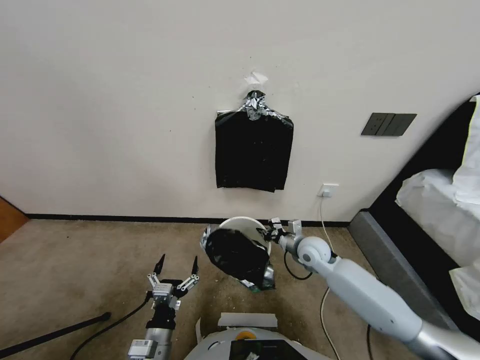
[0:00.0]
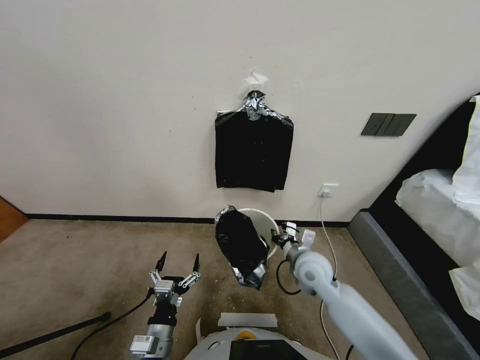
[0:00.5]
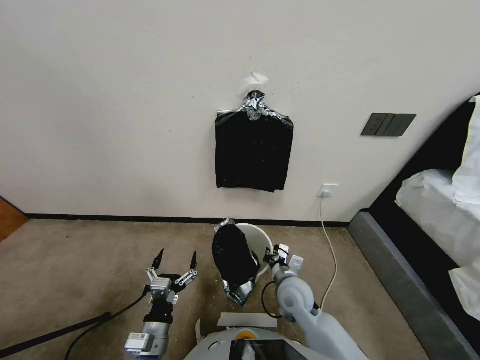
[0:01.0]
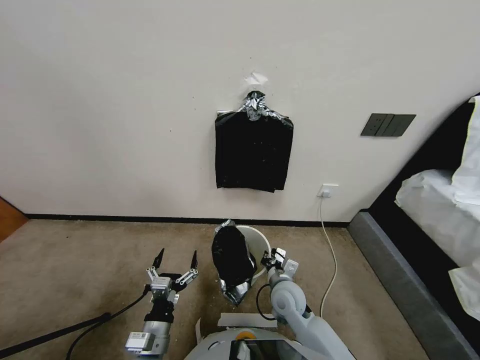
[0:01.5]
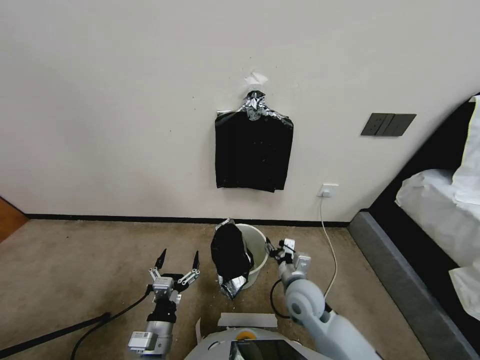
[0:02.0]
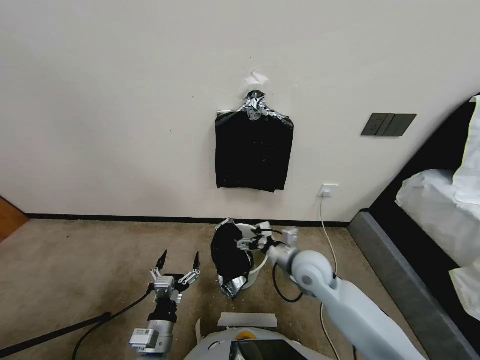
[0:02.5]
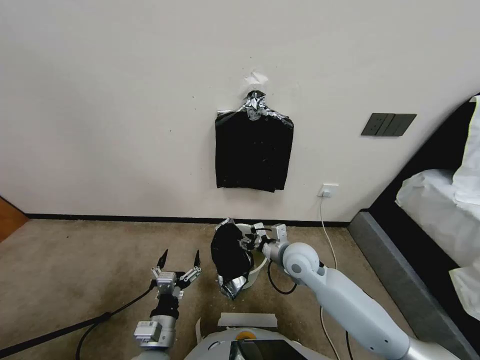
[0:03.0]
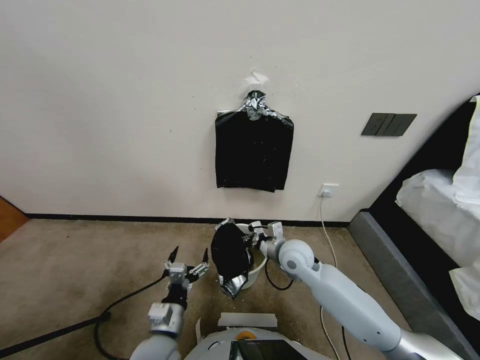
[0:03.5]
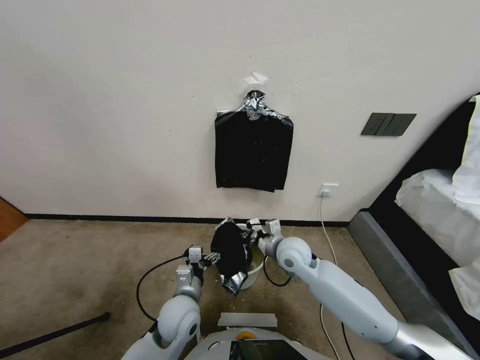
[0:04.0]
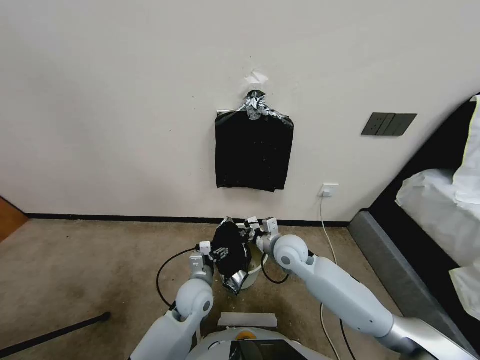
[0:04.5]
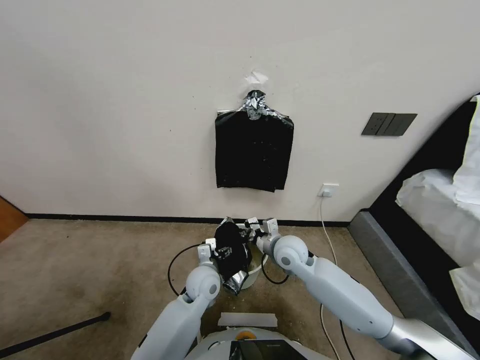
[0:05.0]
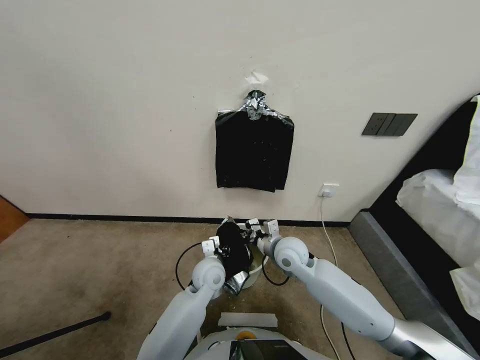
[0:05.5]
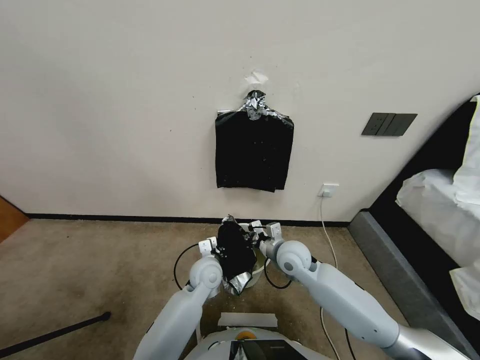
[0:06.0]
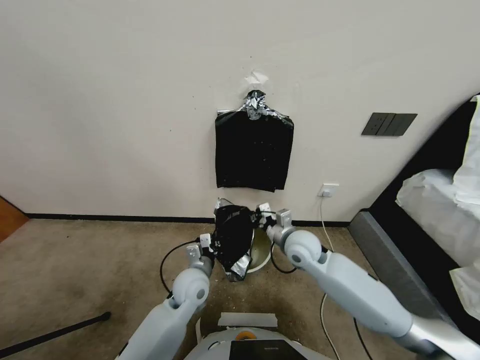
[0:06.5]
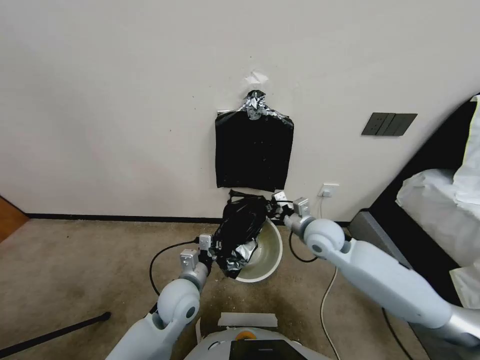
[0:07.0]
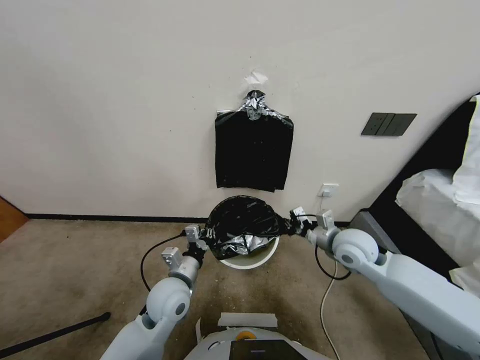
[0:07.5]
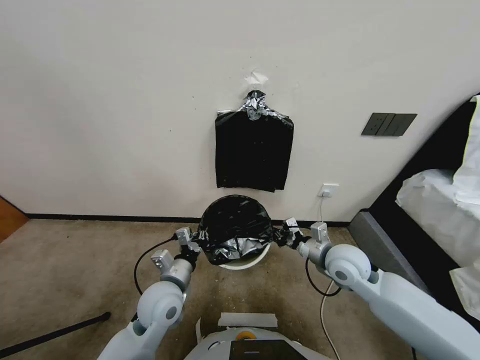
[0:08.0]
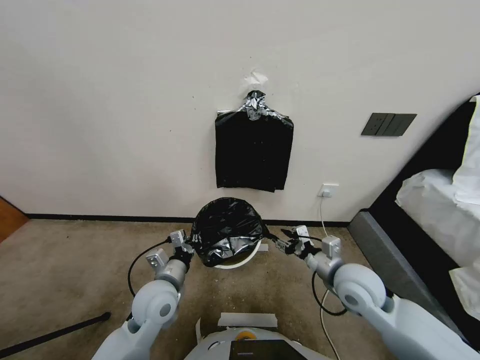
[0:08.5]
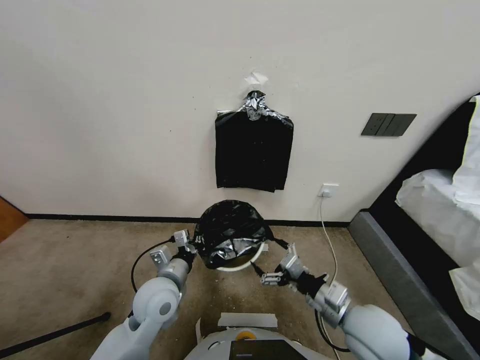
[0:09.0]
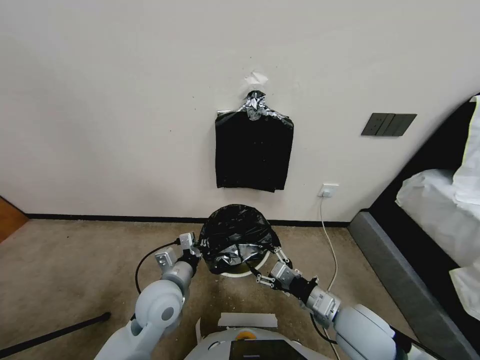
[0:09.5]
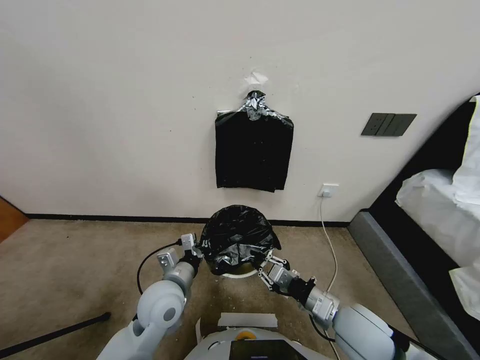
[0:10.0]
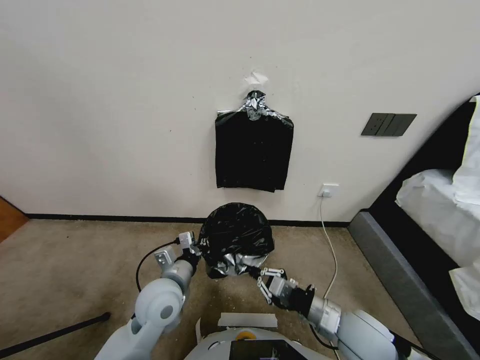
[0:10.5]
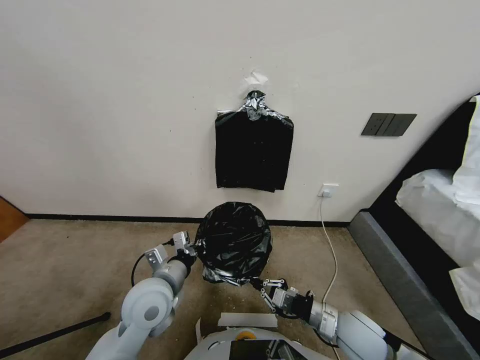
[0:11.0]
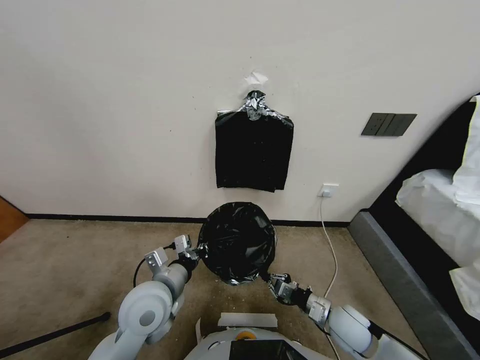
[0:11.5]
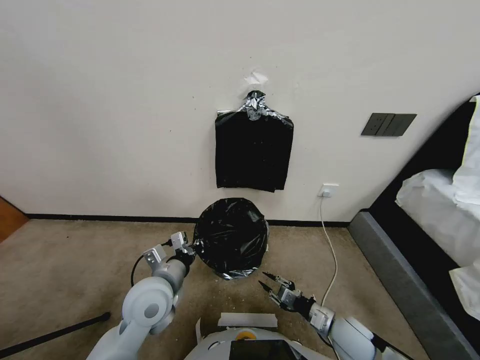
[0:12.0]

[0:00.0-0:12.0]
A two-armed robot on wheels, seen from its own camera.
Task of the whole recording: Place a trash bag onto the trash bin.
0:00.0 to 0:02.0: The right gripper travels backward by approximately 10 cm, and opens its fingers.
0:02.0 to 0:04.0: The right gripper heads forward, covering about 10 cm, and closes up. The left gripper shifts some 15 cm forward and to the right.
0:04.0 to 0:06.0: The left gripper is displaced forward by some 10 cm, and closes.
0:06.0 to 0:08.0: The left gripper goes approximately 15 cm backward, to the left and upward. Meanwhile the right gripper heads to the right, covering approximately 10 cm.
0:08.0 to 0:10.0: The right gripper moves backward, approximately 10 cm, and opens and closes again.
0:10.0 to 0:12.0: The right gripper heads downward, covering some 10 cm, and opens its fingers.

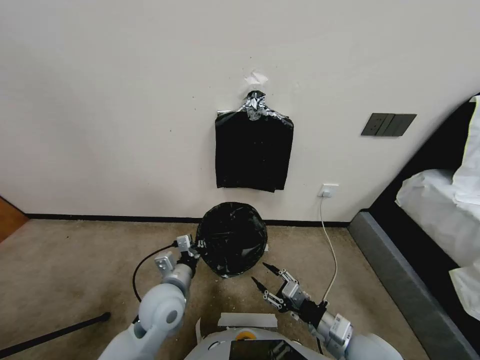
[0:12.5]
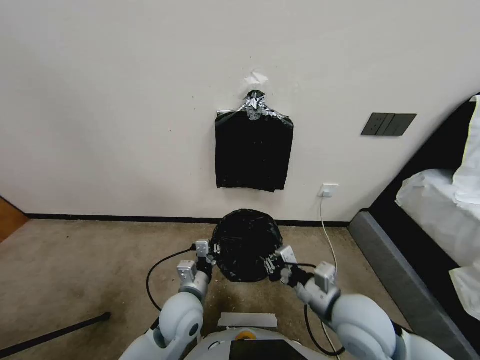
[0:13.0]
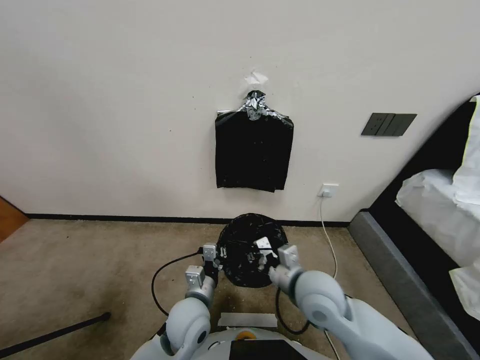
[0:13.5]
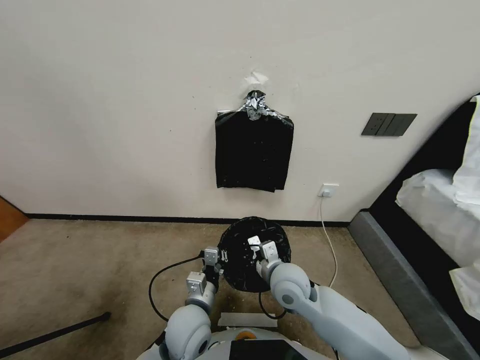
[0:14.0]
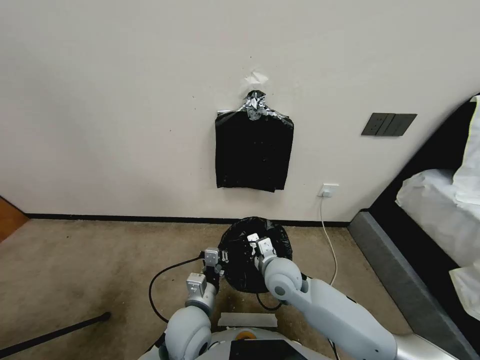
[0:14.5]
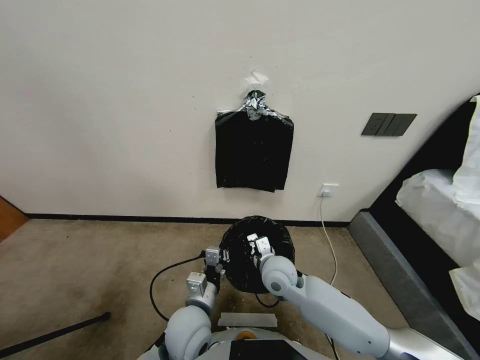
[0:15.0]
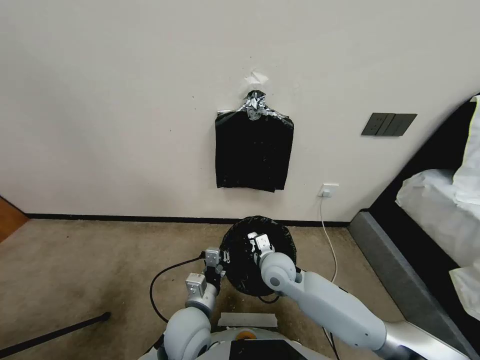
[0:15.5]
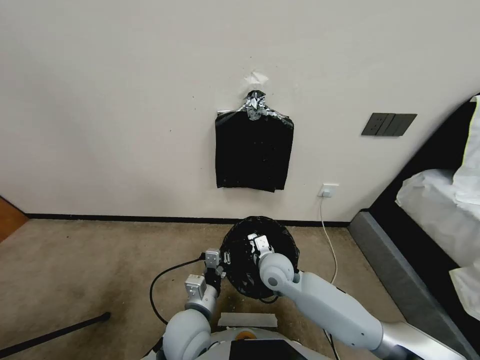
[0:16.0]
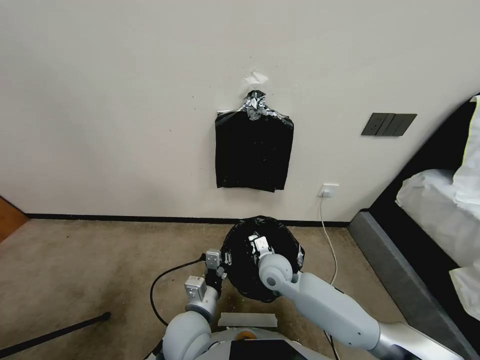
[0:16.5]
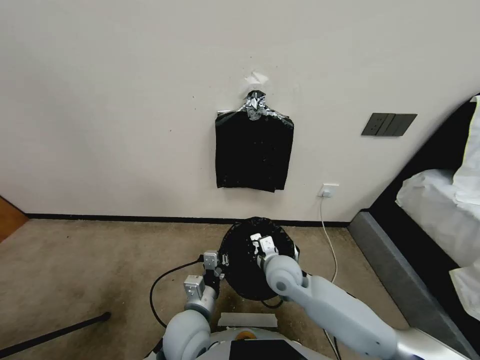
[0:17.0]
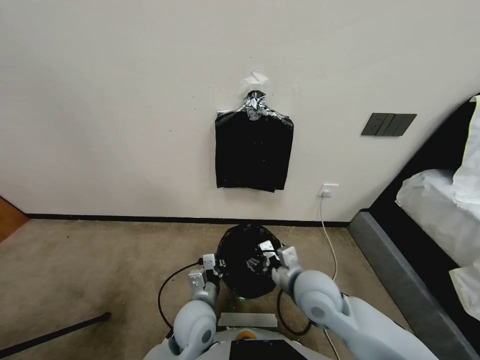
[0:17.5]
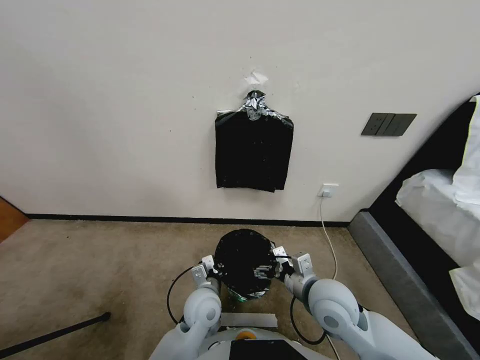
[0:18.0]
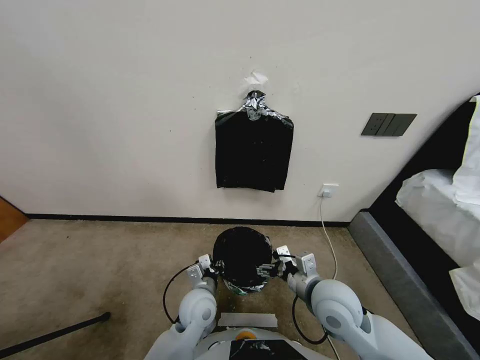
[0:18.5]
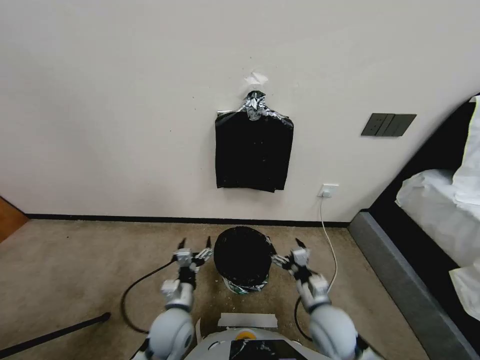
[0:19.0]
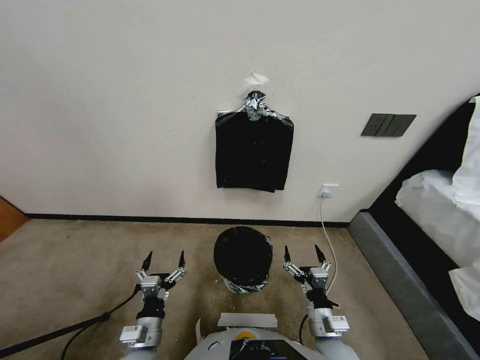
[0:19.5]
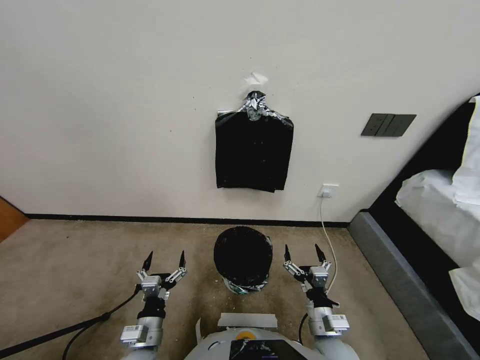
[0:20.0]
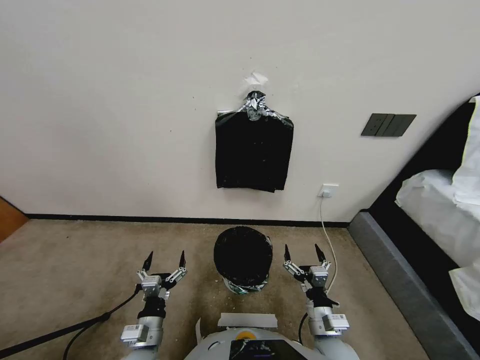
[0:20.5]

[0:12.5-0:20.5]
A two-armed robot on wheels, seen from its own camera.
Task of the whole recording: Place a trash bag onto the trash bin.
0:12.5 to 0:14.5: The left gripper shifts about 5 cm to the right; the right gripper moves forward and to the left, about 20 cm, and closes its fingers.
0:14.5 to 0:16.5: There are only small adjustments of the grippers.
0:16.5 to 0:18.5: The right gripper travels backward, to the right and upward by roughly 15 cm, and opens its fingers, while the left gripper goes approximately 5 cm forward and downward, and opens up.
0:18.5 to 0:20.5: The left gripper is displaced to the left and backward by roughly 15 cm, and opens its fingers, while the right gripper heads downward and backward, covering some 15 cm.

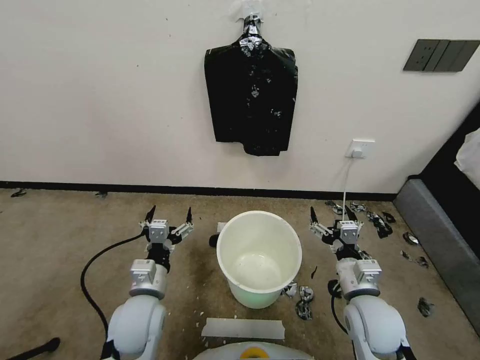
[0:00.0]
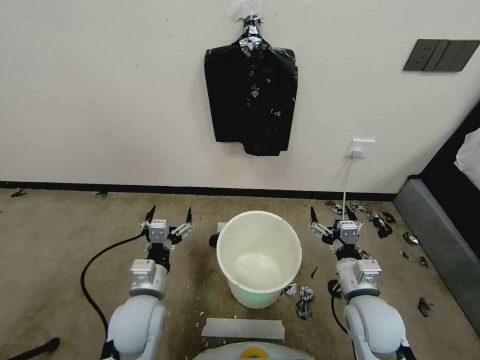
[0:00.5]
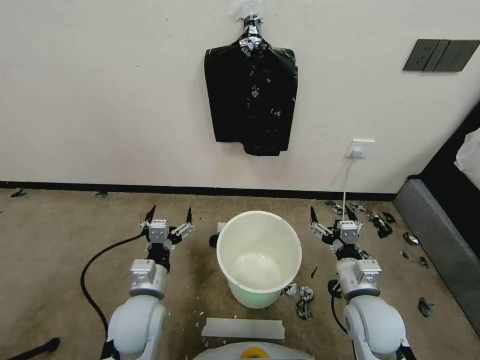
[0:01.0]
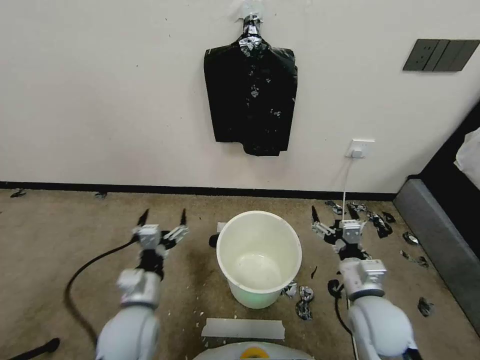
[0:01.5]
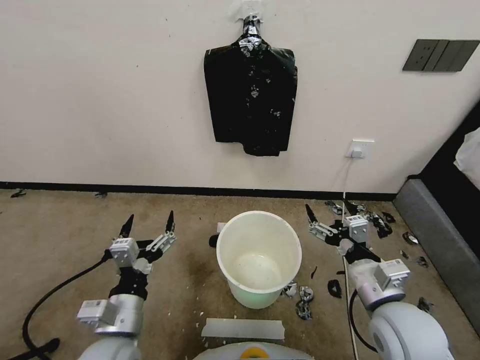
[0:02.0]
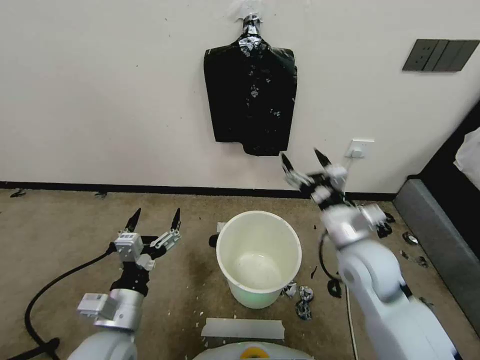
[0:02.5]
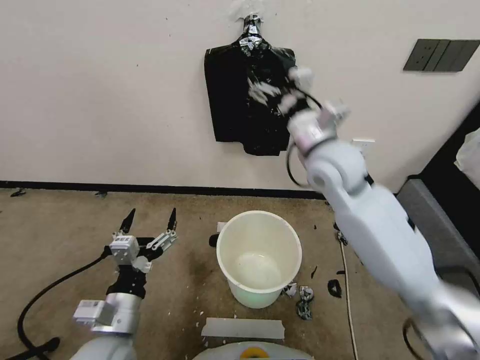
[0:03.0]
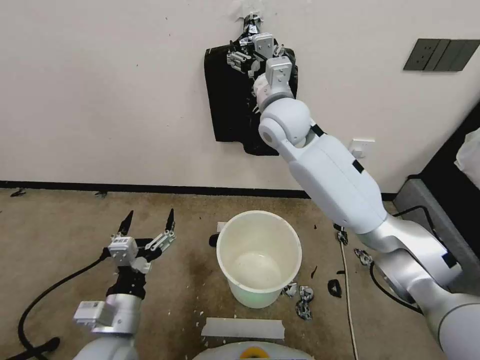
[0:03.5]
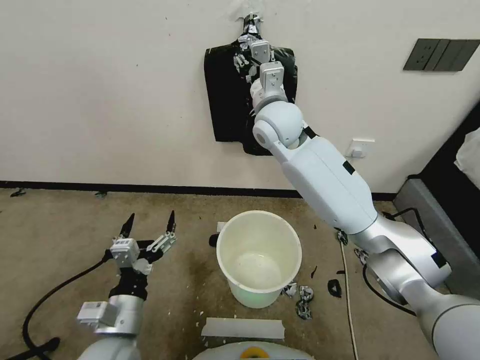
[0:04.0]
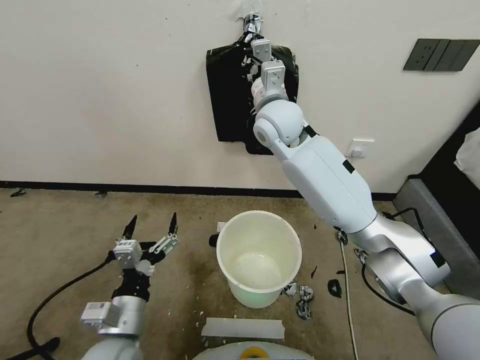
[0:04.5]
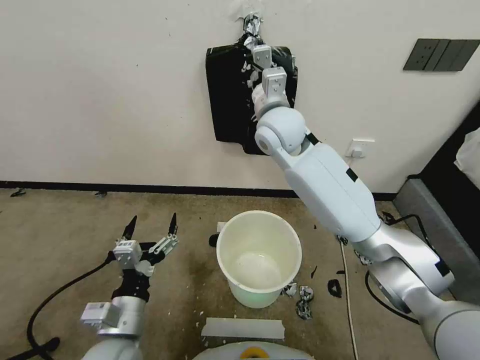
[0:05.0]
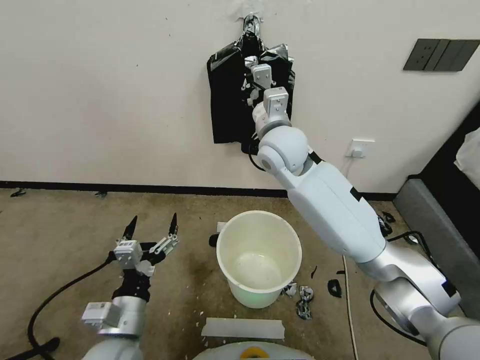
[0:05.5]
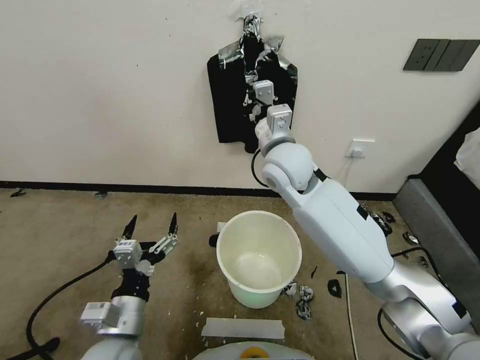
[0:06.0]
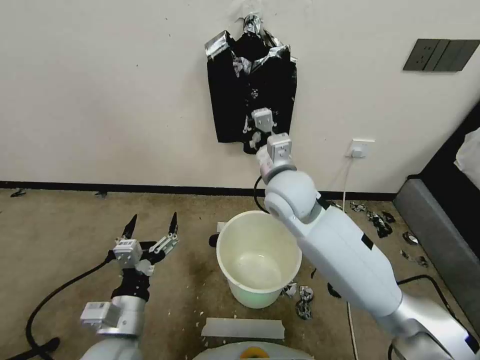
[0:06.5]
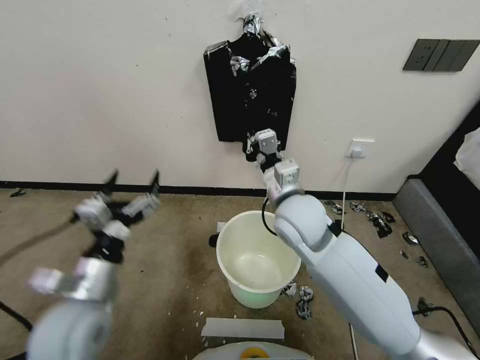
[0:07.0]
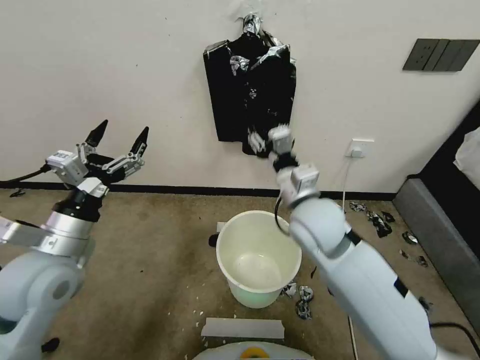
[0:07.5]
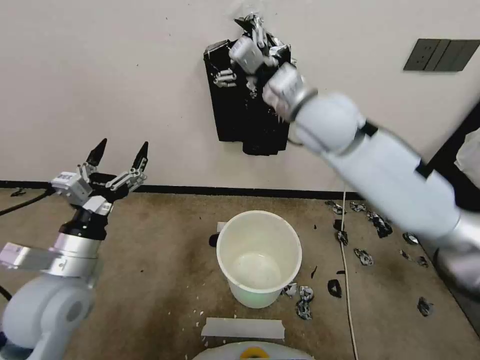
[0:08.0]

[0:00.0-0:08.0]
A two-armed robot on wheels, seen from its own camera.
Task of the whole recording: Place a trash bag onto the trash bin.
0:02.0 to 0:04.0: The right gripper shifts about 40 cm forward, upward and to the left, and closes up.
0:04.0 to 0:06.0: The right gripper travels backward and downward by about 10 cm, and closes its fingers.
0:06.0 to 0:08.0: The left gripper goes roughly 15 cm upward, to the left and forward. The right gripper is displaced upward by approximately 10 cm, and opens up.
